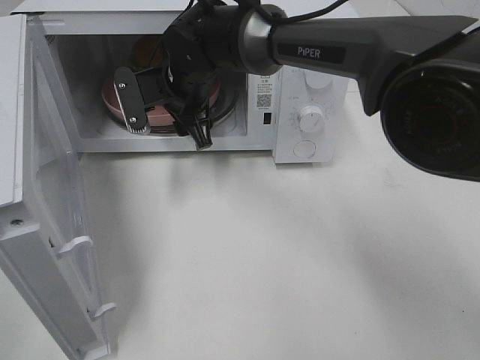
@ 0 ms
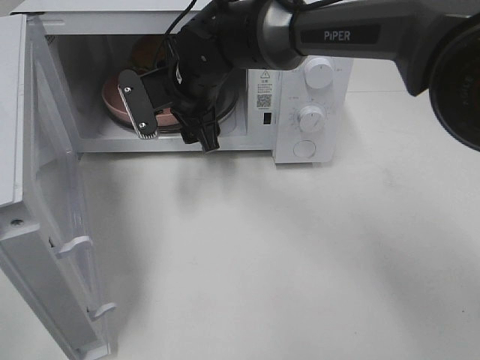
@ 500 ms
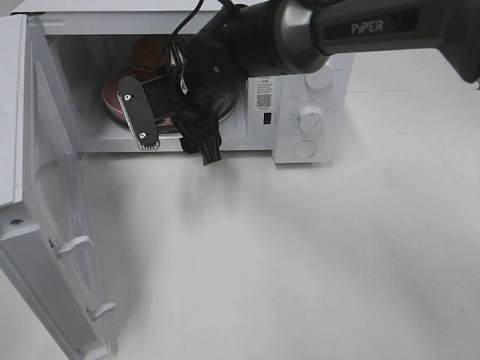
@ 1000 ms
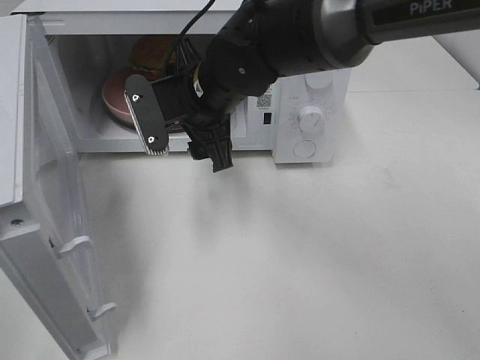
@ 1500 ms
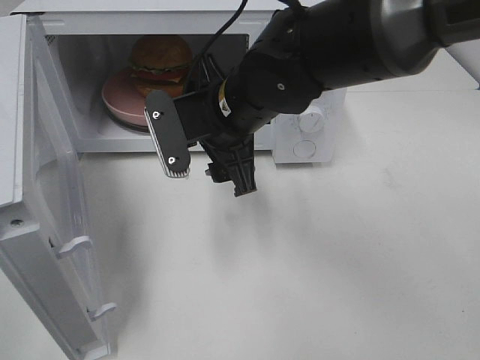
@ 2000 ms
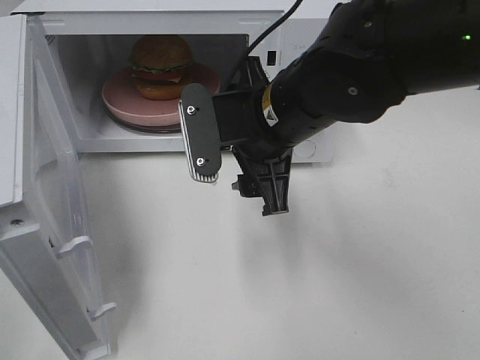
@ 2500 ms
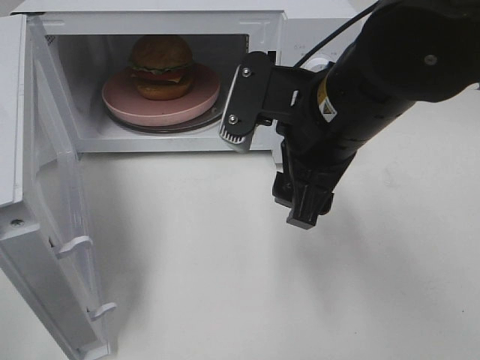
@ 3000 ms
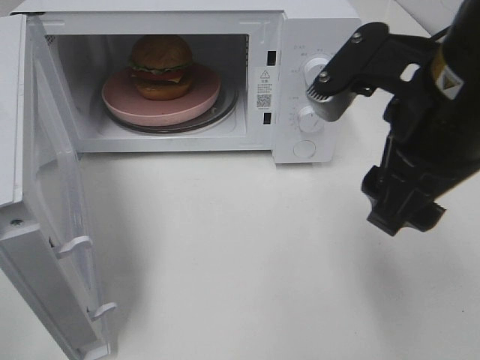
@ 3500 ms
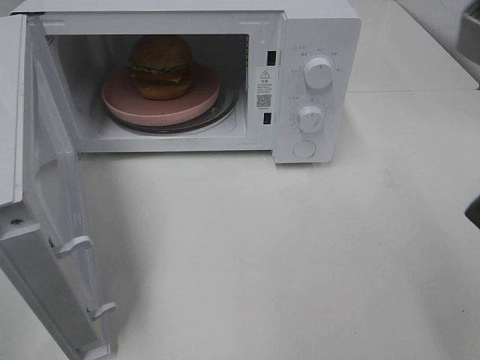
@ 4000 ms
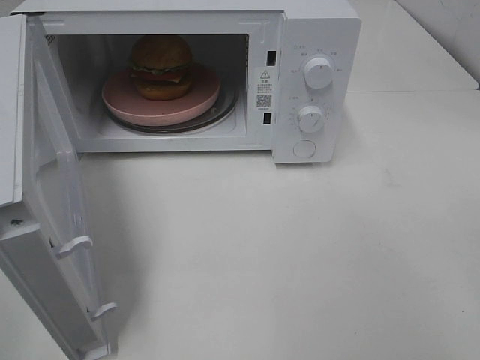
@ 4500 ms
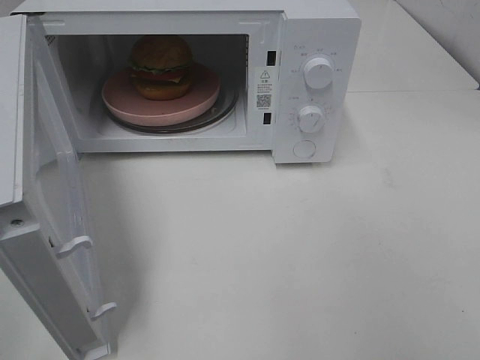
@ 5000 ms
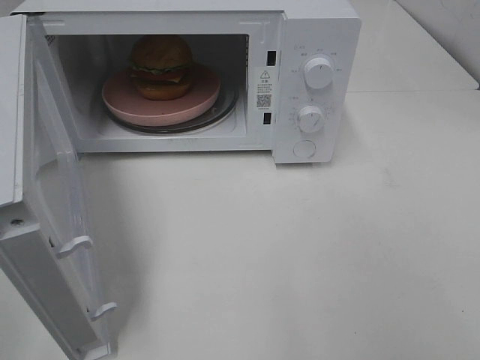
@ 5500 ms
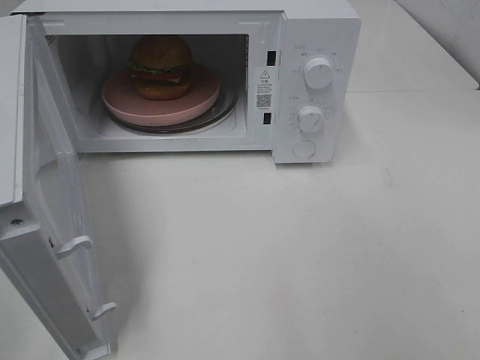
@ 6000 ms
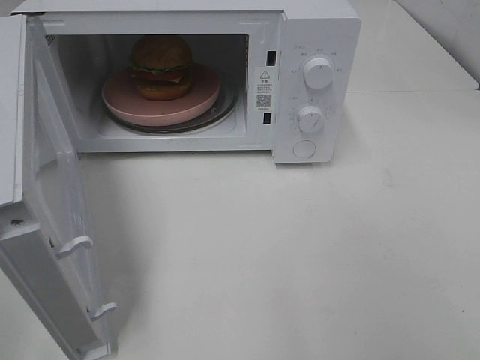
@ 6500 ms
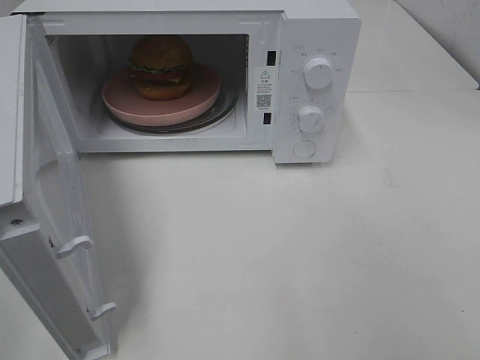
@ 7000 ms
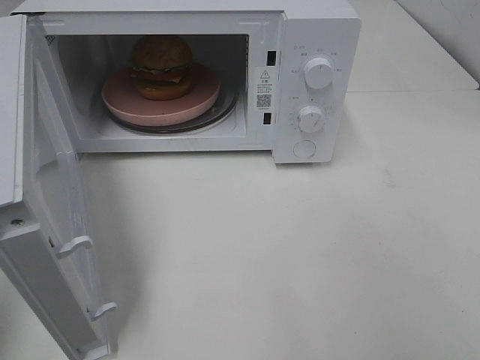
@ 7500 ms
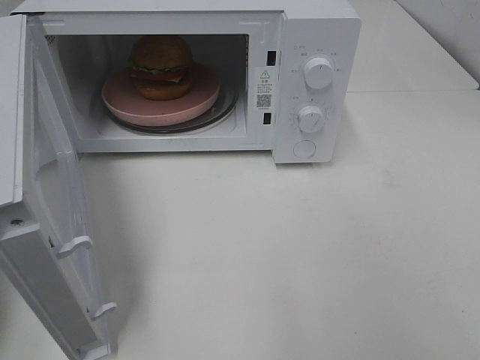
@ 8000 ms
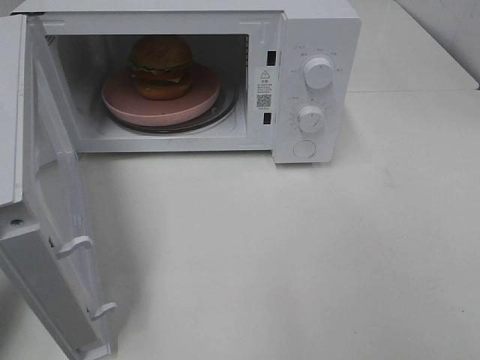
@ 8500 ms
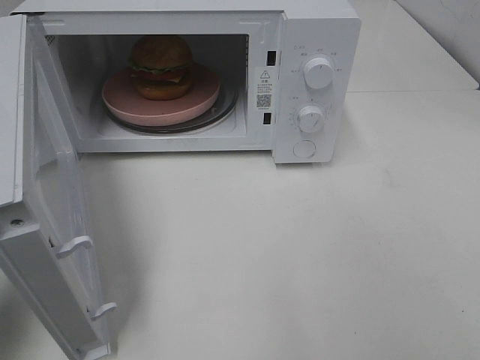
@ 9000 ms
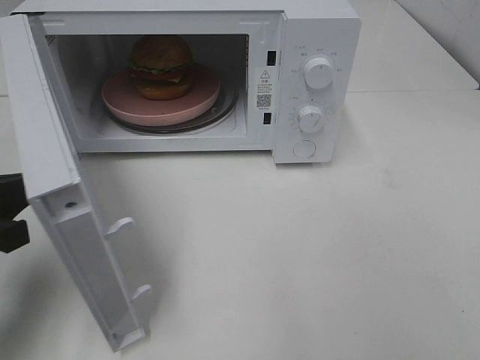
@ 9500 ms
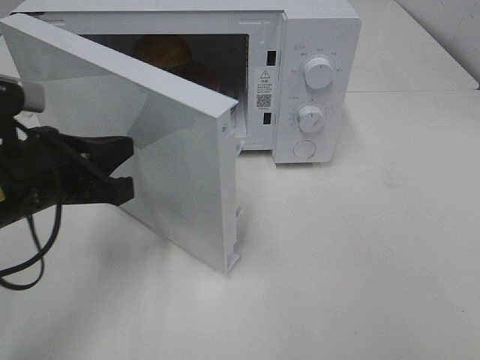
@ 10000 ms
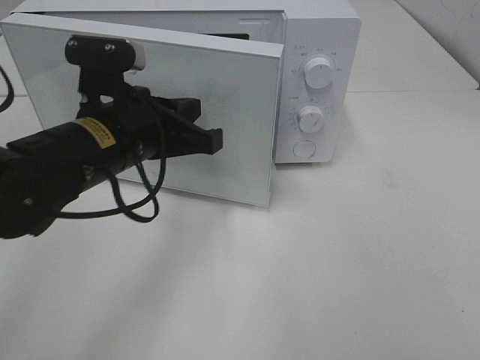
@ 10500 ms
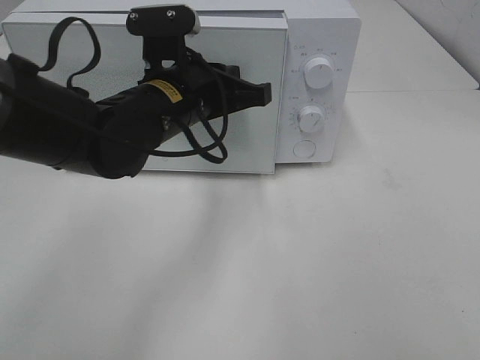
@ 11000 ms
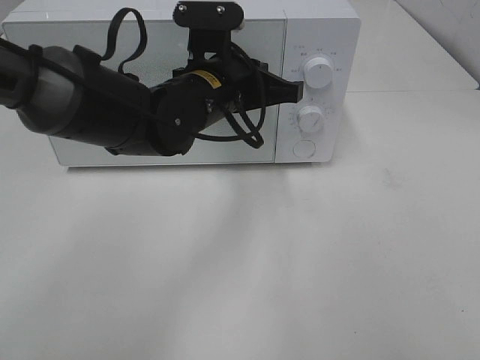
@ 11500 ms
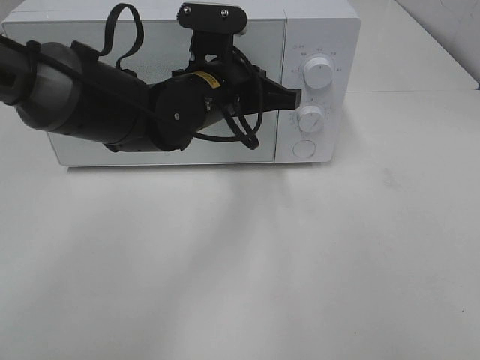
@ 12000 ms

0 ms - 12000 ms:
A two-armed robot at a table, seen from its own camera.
Task of the whole recording: Heat the burger.
0 ms - 2000 ms: The right gripper travels backward and to the right by about 15 cm.
2000 ms - 4000 ms: The right gripper is displaced to the right, backward and upward by approximately 30 cm.
4000 ms - 6000 ms: The right gripper travels backward and to the right by approximately 15 cm.
8000 ms - 10000 ms: The left gripper moves to the right, forward and downward, about 20 cm.
10000 ms - 12000 ms: The left gripper is displaced to the right and forward by some 20 cm.

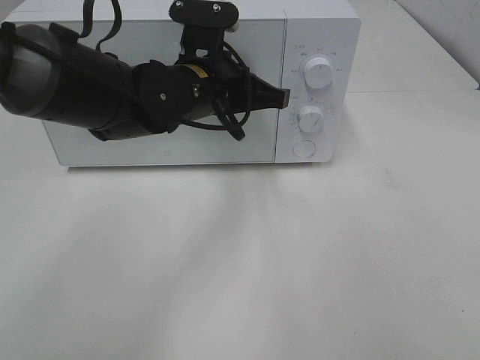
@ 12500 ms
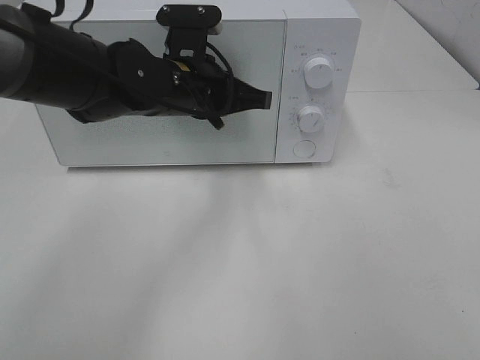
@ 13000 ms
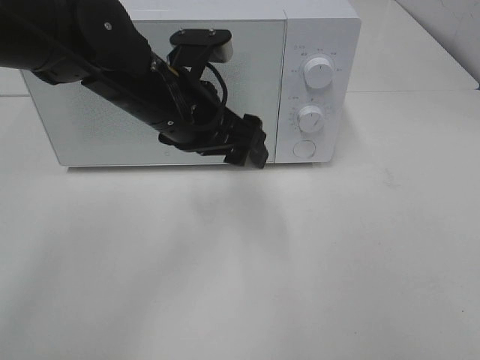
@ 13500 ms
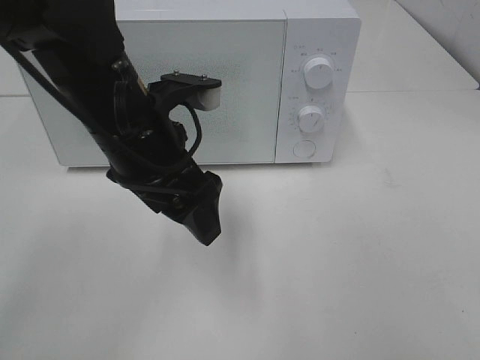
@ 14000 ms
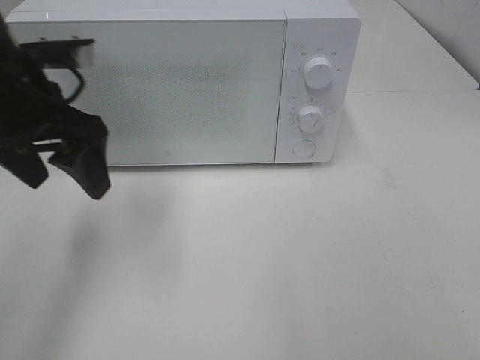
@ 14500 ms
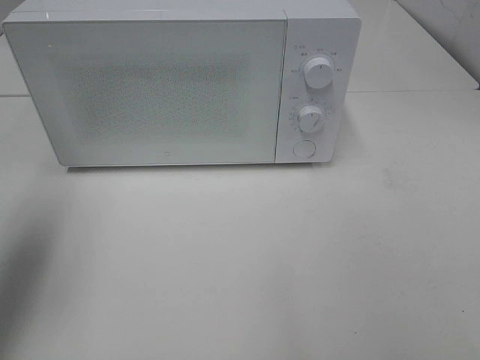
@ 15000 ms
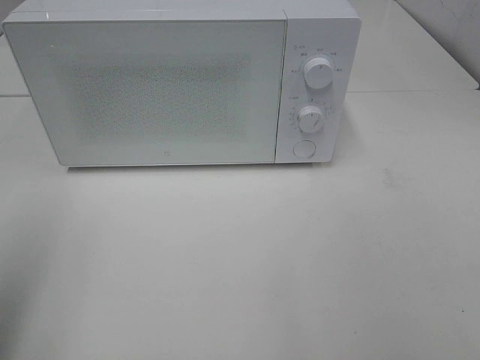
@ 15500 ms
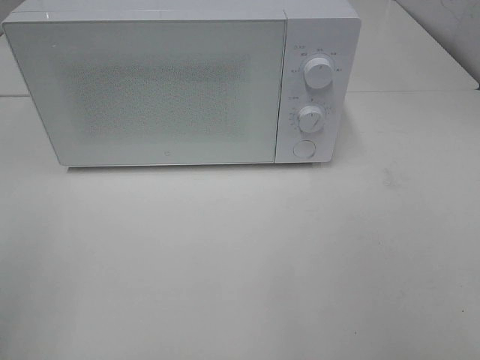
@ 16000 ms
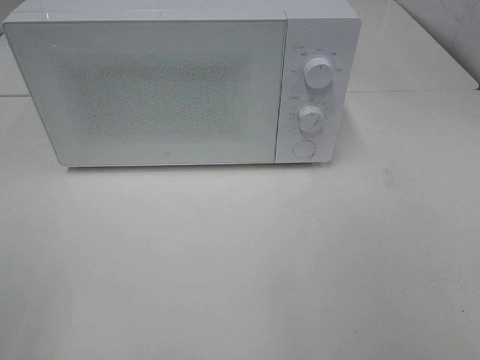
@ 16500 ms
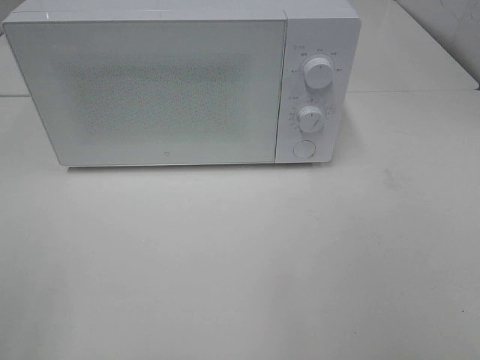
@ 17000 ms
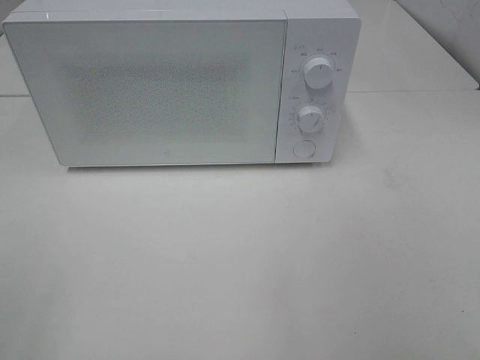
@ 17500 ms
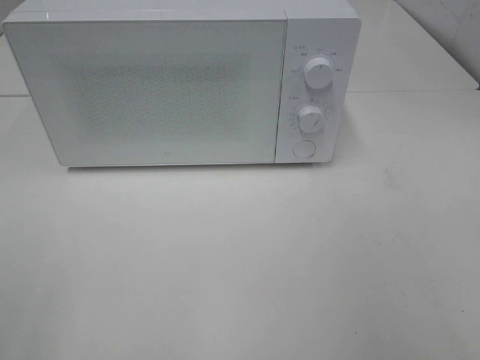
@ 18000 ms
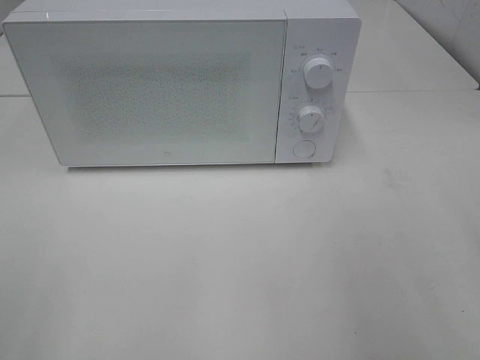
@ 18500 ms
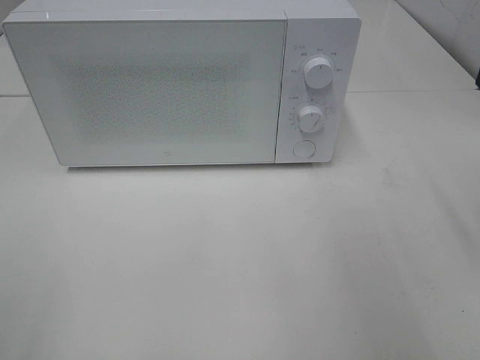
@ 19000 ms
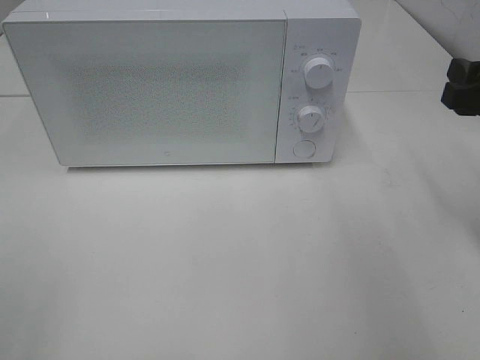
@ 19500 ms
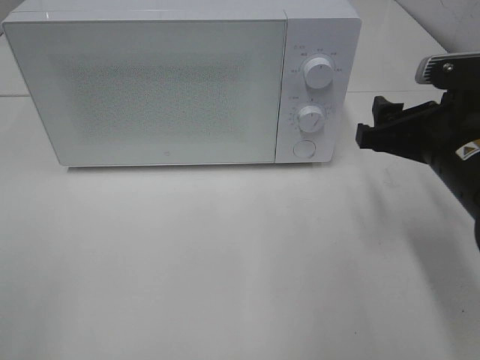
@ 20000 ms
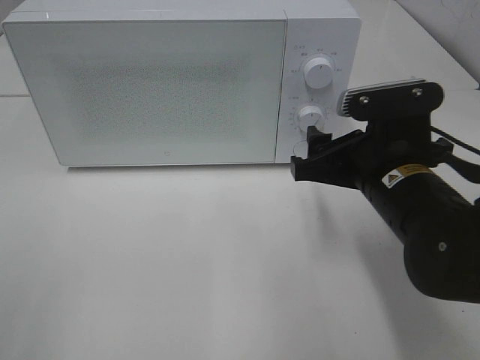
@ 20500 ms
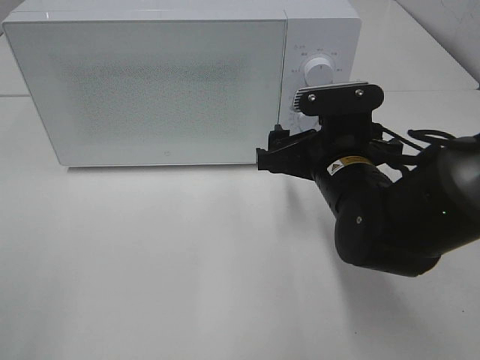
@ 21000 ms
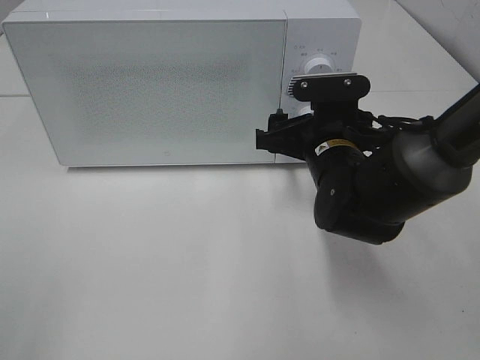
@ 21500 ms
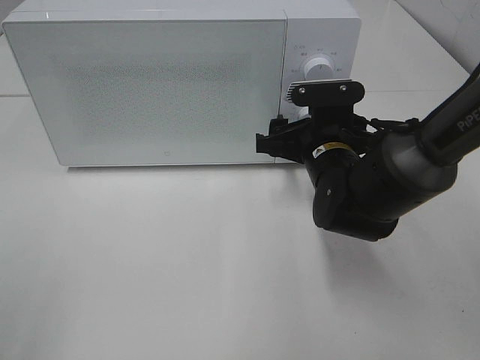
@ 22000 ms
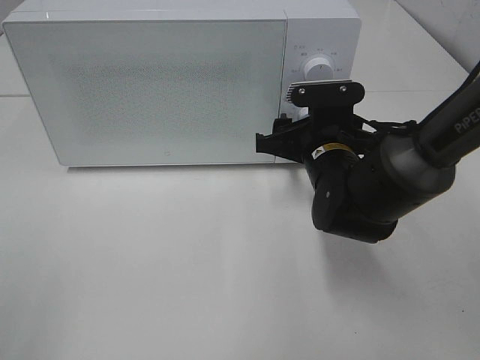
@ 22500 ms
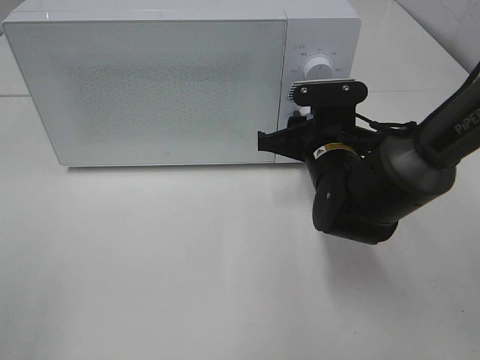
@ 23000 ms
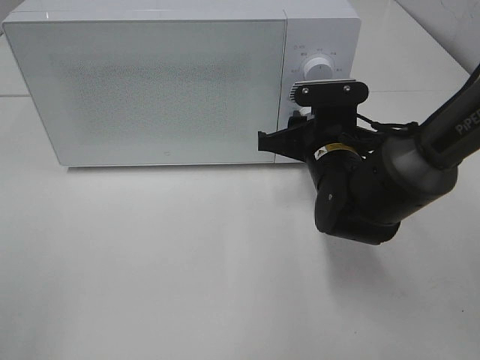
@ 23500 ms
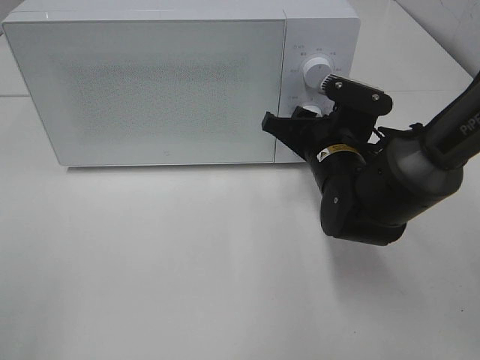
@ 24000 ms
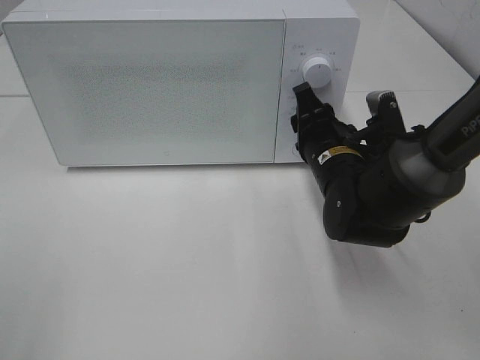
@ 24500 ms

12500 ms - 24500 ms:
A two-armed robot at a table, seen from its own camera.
Task of the whole recording: Heat the burger.
12500 ms - 14500 ms: The left gripper moves to the left and upward, about 15 cm, and opens up.
14500 ms - 16500 ms: The left gripper is displaced backward and to the left by approximately 30 cm.
18500 ms - 20500 ms: The right gripper heads to the left, downward and forward, covering roughly 20 cm.
20500 ms - 22500 ms: The right gripper travels forward by about 10 cm.

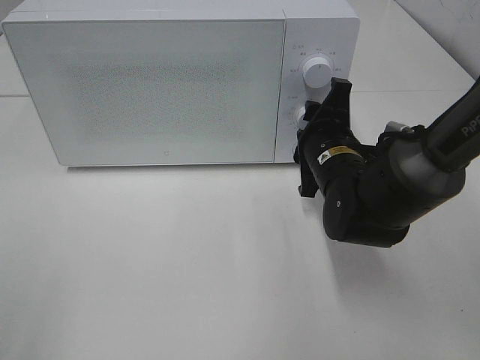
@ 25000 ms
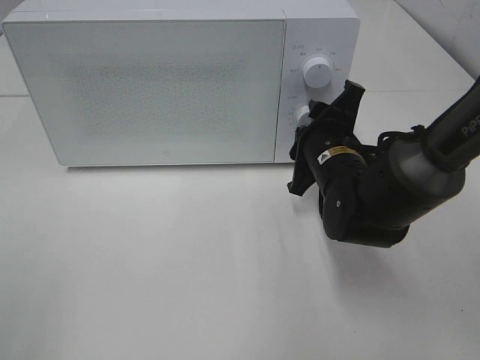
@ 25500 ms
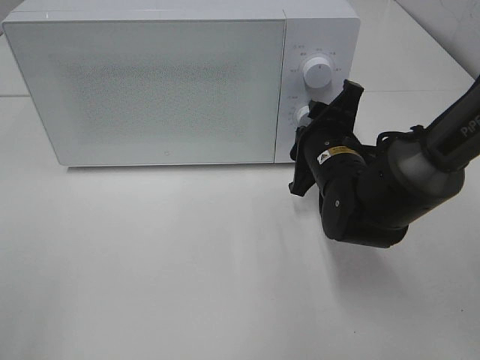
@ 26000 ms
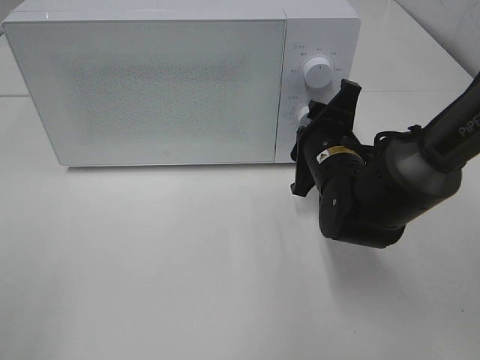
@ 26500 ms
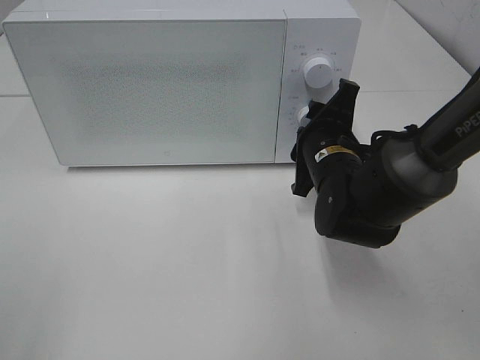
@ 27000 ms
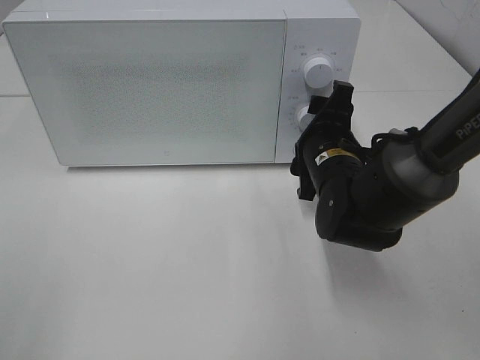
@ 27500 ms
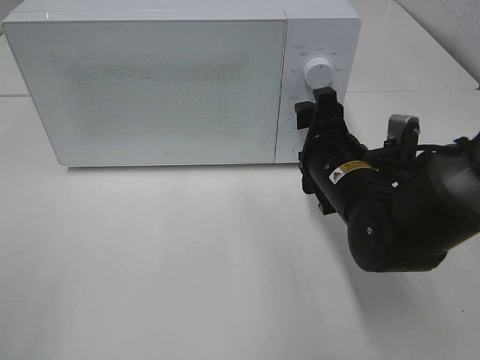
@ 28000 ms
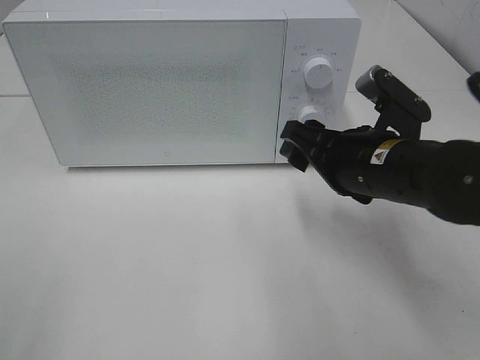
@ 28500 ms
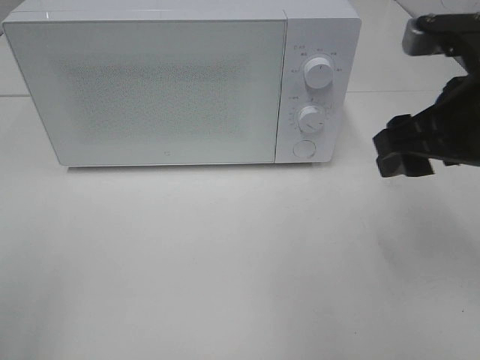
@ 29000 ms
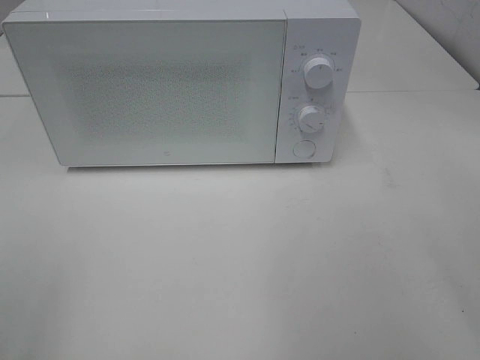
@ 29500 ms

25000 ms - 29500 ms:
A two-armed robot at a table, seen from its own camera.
Task of the whole recording: Heat the burger.
Step, 25000 ms - 27000 ms: Right hand: twist timer button.
25000 ms - 27000 ms: The grippers move only a little.
27000 ms - 29500 ms: The right gripper is displaced upward, backward and to the right by about 30 cm, and opens.
